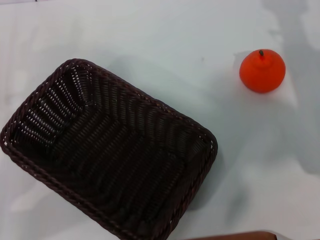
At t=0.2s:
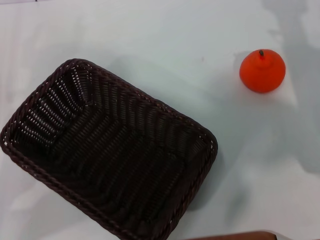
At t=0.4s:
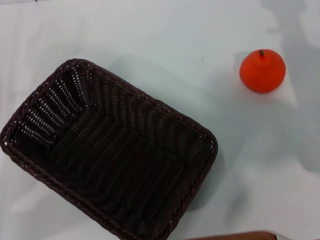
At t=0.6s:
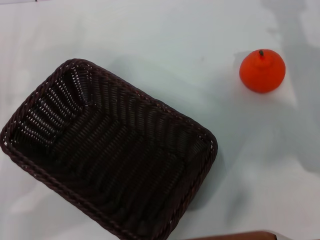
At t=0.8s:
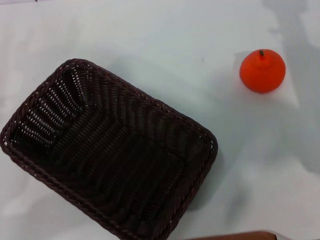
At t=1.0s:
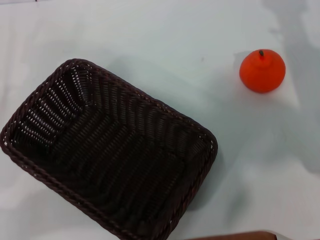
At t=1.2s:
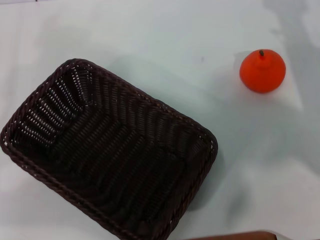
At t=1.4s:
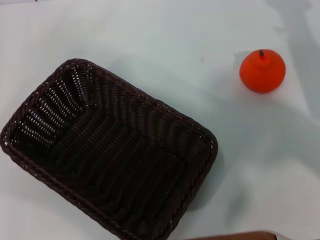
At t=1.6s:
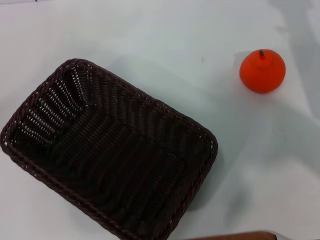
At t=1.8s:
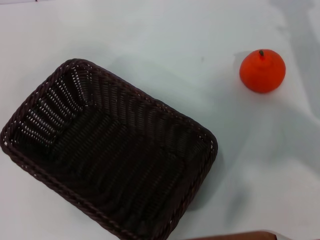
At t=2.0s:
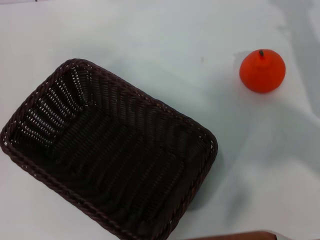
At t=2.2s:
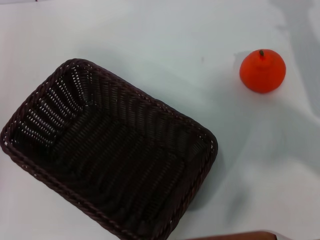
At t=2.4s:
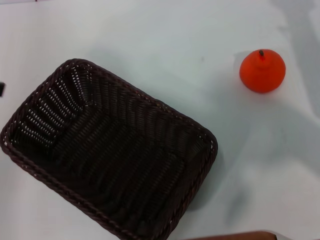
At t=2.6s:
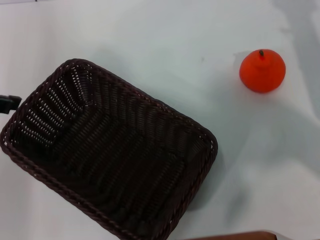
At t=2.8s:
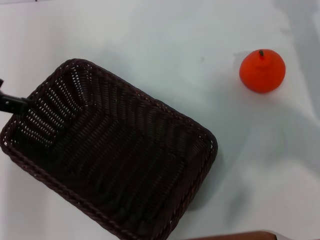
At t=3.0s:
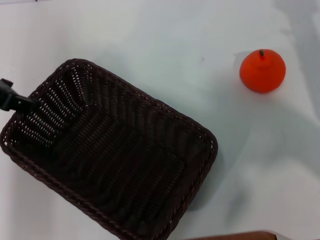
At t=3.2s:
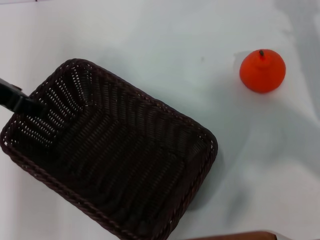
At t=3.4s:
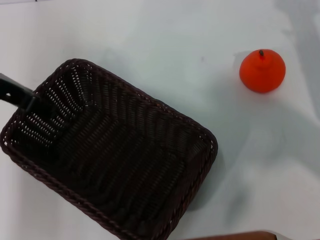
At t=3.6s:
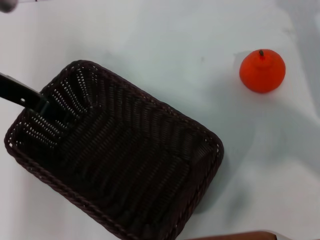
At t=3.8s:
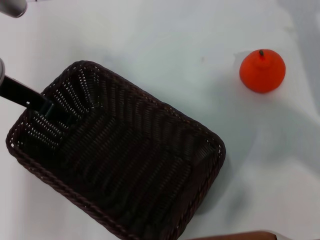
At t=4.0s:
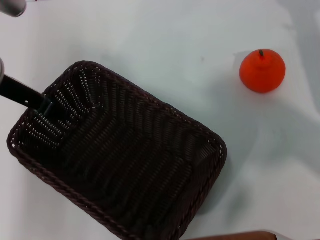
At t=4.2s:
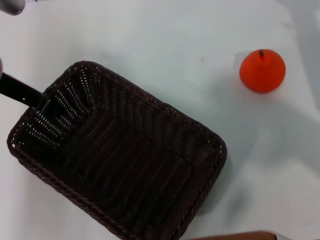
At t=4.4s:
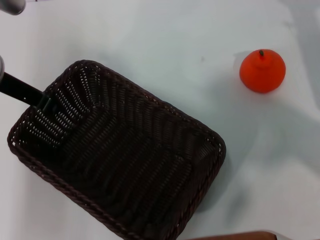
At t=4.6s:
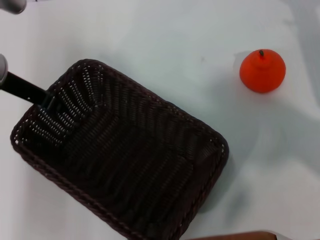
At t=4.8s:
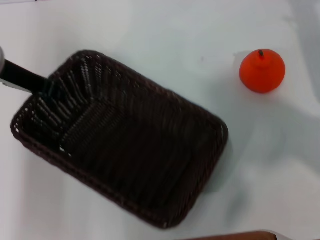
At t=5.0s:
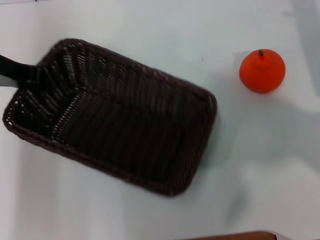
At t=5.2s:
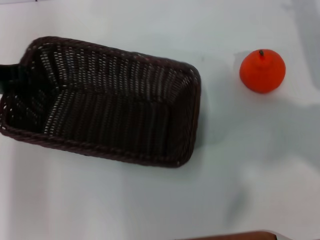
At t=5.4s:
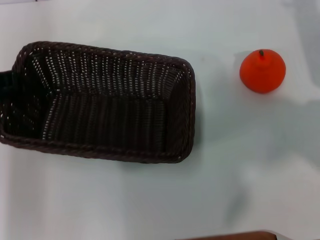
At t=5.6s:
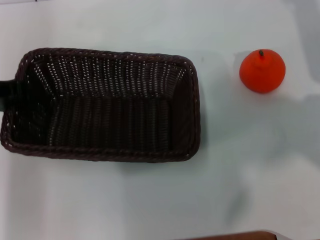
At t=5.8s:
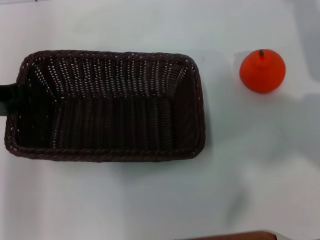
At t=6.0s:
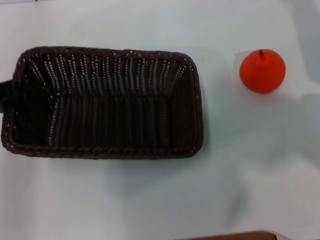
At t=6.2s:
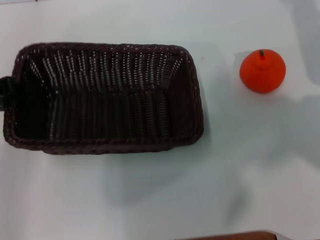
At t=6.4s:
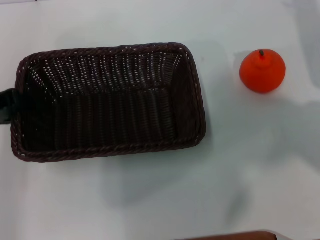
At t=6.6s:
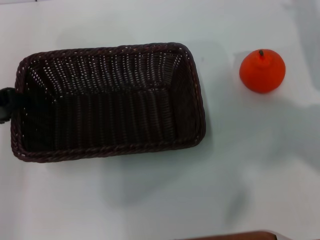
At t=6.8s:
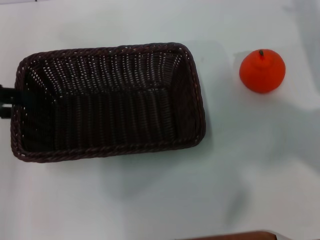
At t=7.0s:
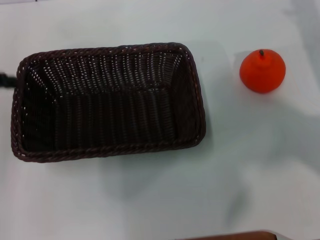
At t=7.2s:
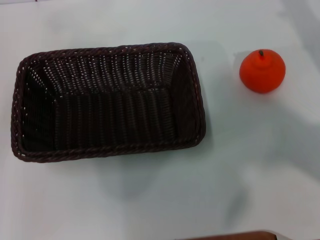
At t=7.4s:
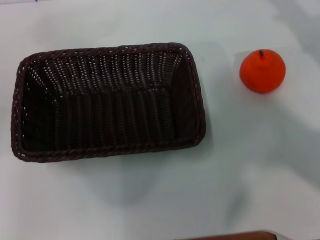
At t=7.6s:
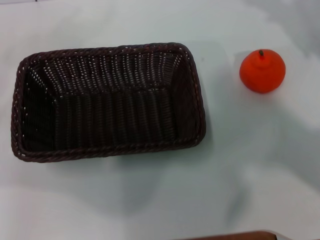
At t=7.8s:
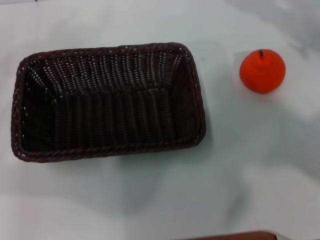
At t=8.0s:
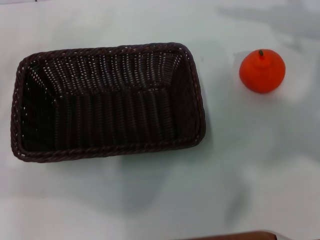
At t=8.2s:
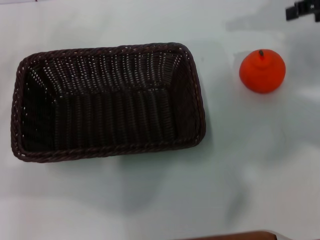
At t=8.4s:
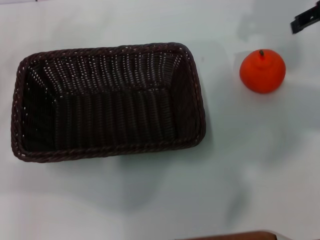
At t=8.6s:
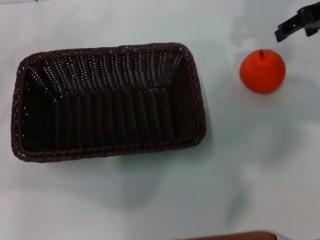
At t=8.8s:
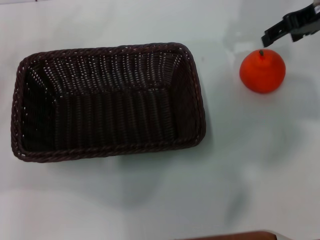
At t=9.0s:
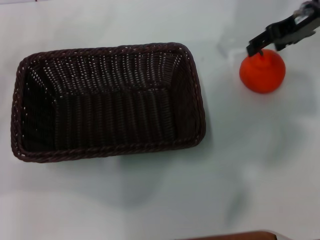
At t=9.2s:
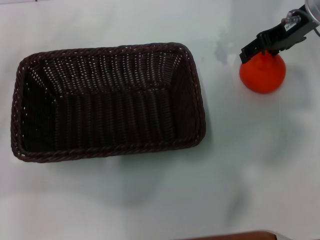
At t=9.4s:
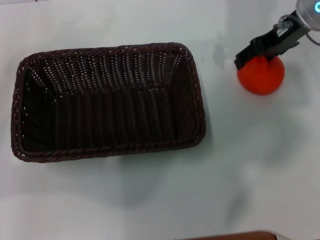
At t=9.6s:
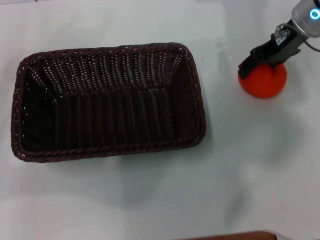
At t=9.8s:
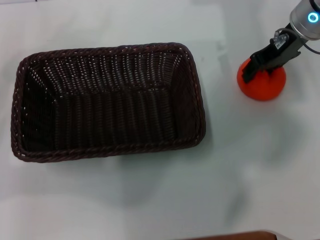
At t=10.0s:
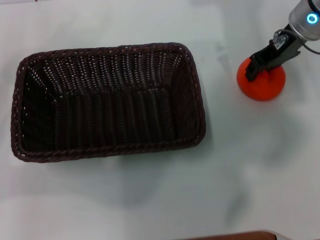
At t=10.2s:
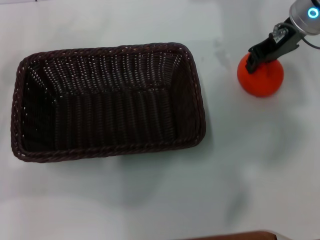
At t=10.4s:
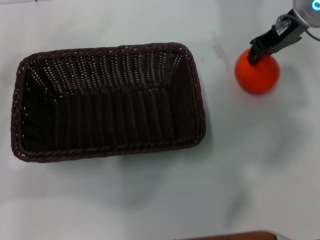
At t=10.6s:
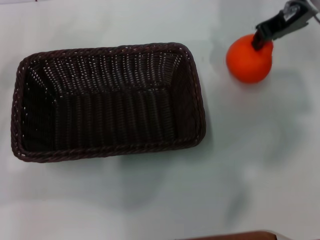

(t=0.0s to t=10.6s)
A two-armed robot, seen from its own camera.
Task of the whole recording: the left gripper pick up the black basket and place it horizontally in the middle of the table, the right gripper pick up the orange and place it into the black basket.
Step, t=0.0s - t=4.8s: Pick up the dark basket with the left gripper.
Step, t=5.0s - t=7.0s: Place the dark basket in the center of view with the left gripper.
t=0.0s - t=1.6s: The left gripper travels upward and to the left by some 20 cm.
t=1.6s - t=3.0s: The left gripper moves to the right and forward, about 20 cm.
t=3.0s - t=4.6s: The left gripper heads downward, covering about 5 cm, and closes up.
t=4.6s - t=6.0s: The left gripper shifts approximately 5 cm to the left.
t=6.0s - t=7.6s: The left gripper moves to the left and backward, about 15 cm, and opens up; the right gripper moves upward and backward, about 10 cm.
t=7.6s - t=9.0s: The right gripper goes approximately 15 cm to the left and forward.
t=9.0s - t=10.6s: The right gripper closes its fingers.

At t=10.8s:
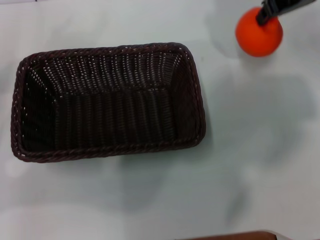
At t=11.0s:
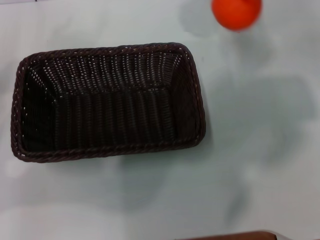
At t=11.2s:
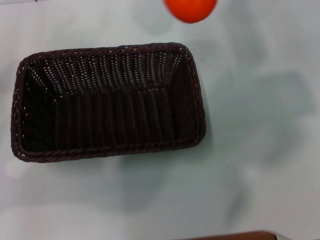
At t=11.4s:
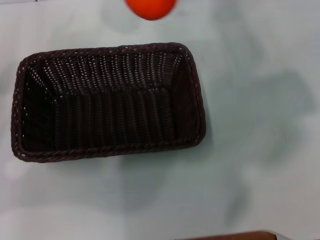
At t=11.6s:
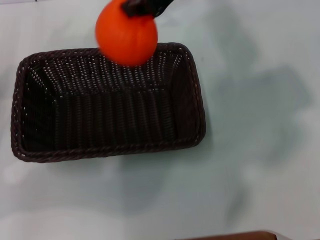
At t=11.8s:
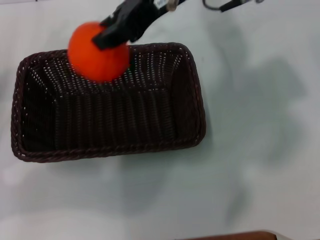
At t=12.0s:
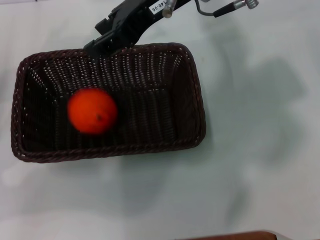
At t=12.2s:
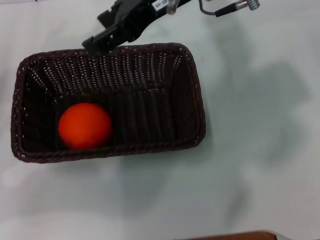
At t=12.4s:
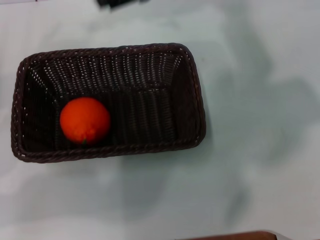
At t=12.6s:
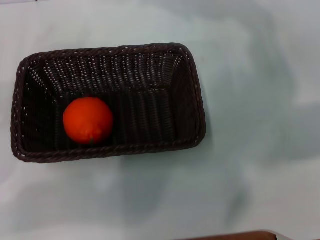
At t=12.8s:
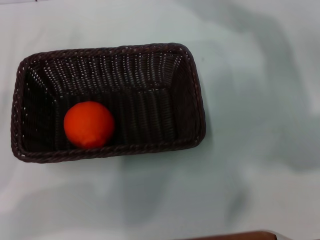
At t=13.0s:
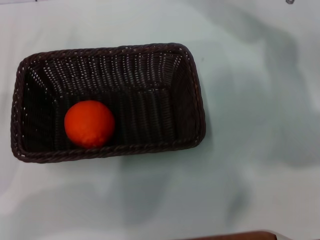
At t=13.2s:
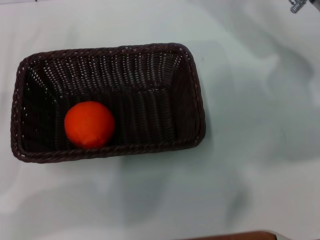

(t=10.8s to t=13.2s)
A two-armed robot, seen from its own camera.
Task of the whole recording: the left gripper pick up the black basket and place it horizontally in the middle of the table, the right gripper pick up the orange and place it into the black basket.
Step, t=10.8s - t=12.0s: Place the orange into the dark basket with the right gripper.
t=10.8s - t=12.0s: The right gripper moves to the left, approximately 15 cm.
t=12.0s - t=13.2s: The right gripper is displaced to the right and downward by approximately 20 cm, and opens its fingers.
